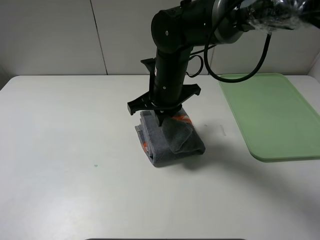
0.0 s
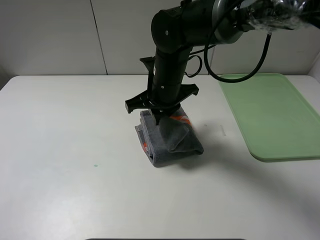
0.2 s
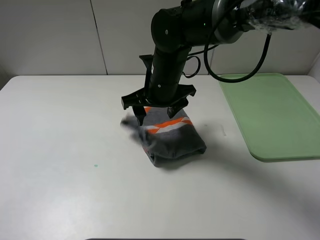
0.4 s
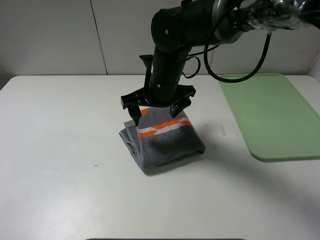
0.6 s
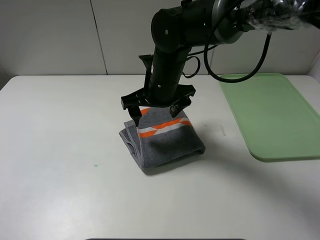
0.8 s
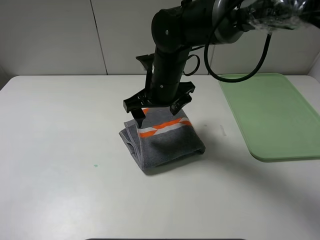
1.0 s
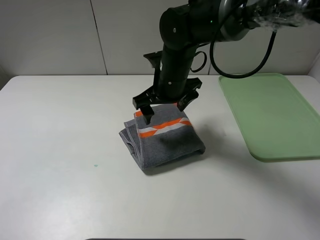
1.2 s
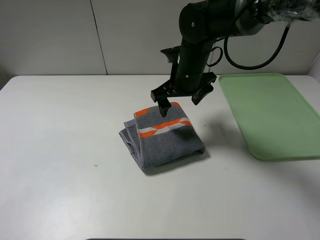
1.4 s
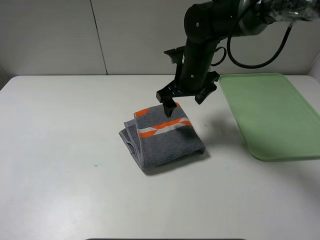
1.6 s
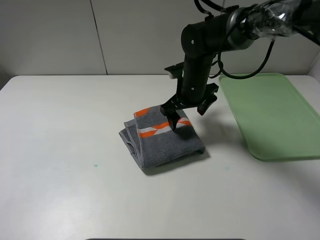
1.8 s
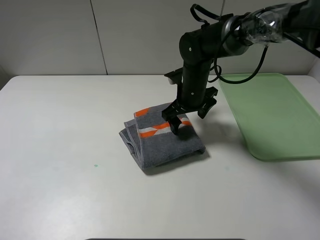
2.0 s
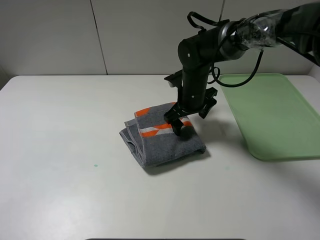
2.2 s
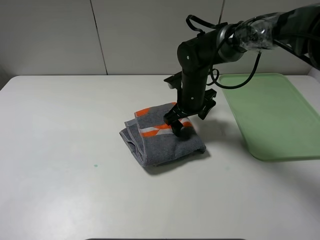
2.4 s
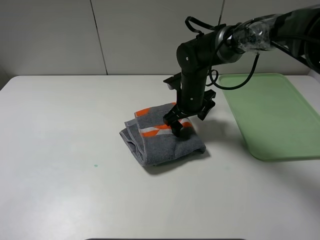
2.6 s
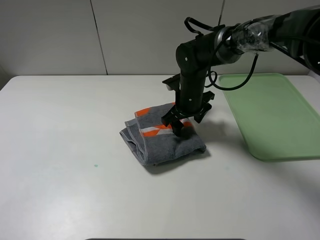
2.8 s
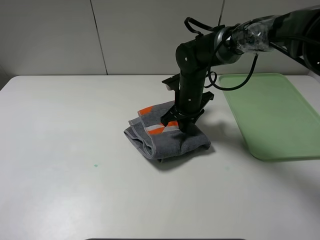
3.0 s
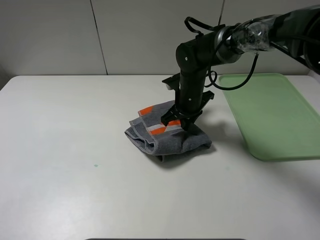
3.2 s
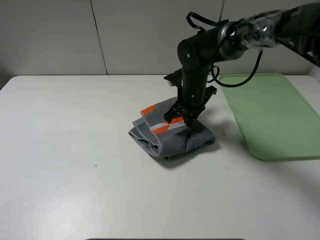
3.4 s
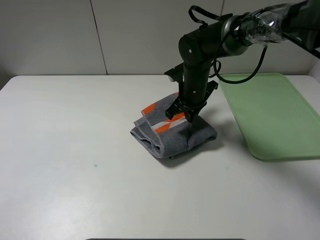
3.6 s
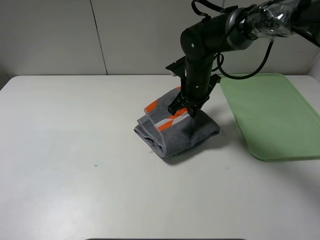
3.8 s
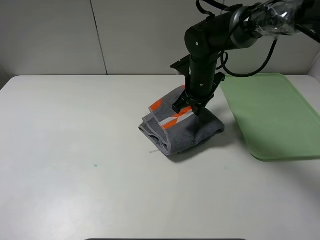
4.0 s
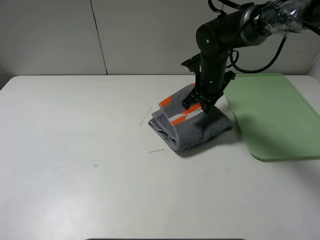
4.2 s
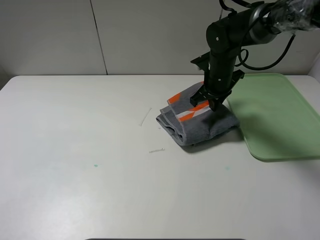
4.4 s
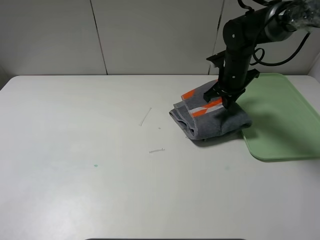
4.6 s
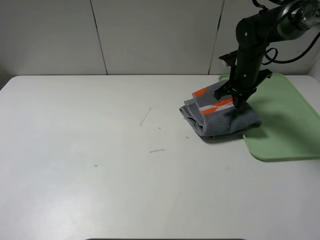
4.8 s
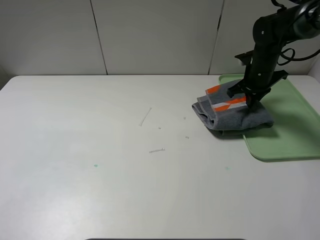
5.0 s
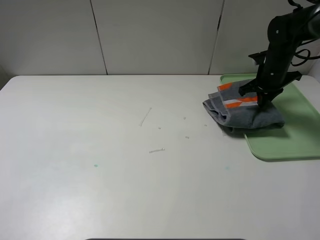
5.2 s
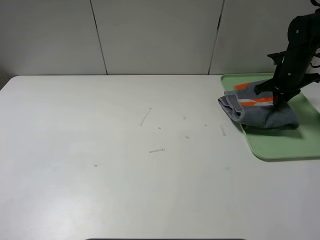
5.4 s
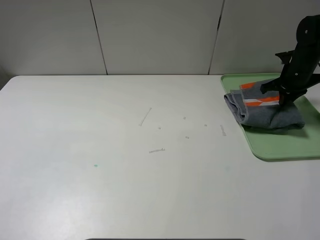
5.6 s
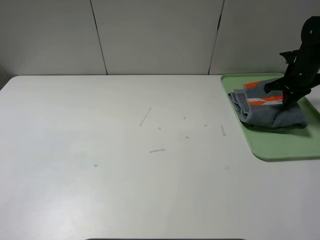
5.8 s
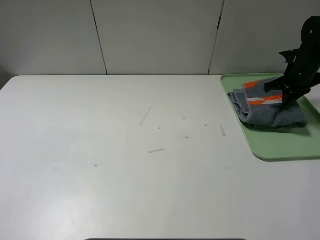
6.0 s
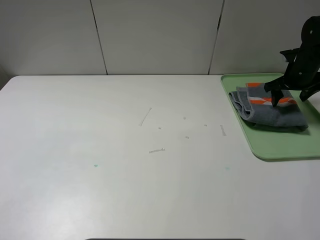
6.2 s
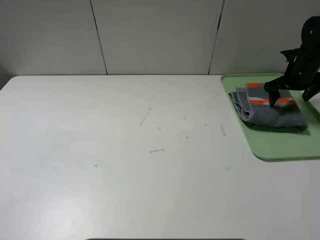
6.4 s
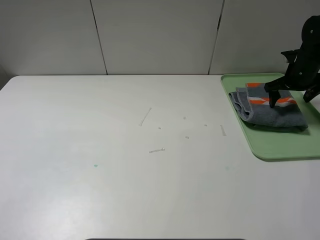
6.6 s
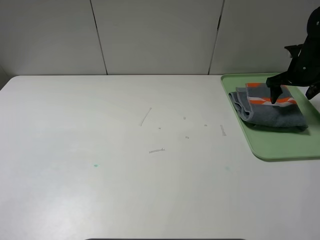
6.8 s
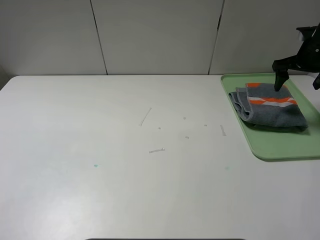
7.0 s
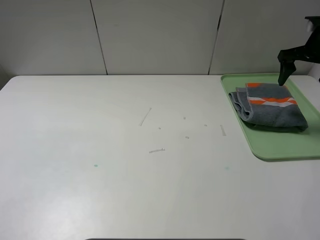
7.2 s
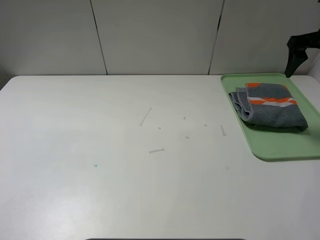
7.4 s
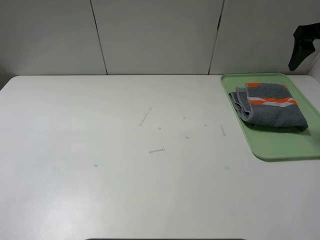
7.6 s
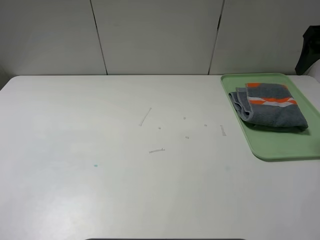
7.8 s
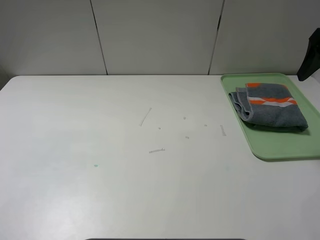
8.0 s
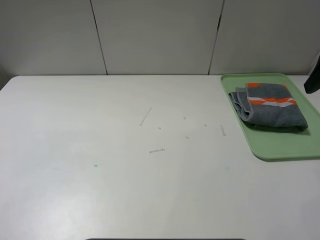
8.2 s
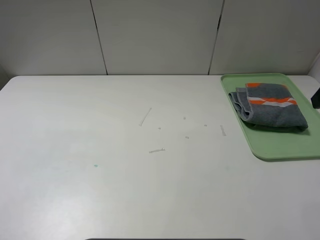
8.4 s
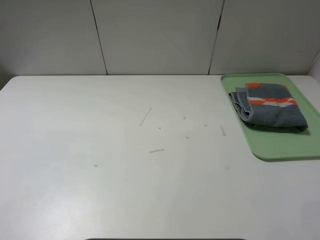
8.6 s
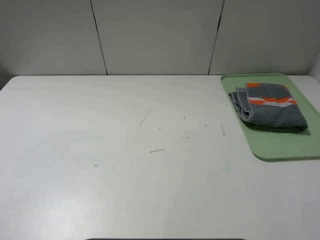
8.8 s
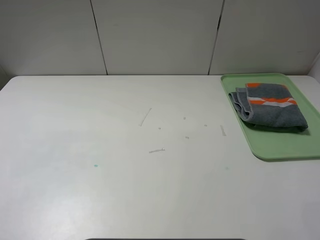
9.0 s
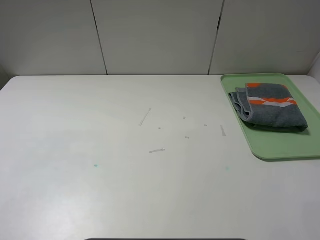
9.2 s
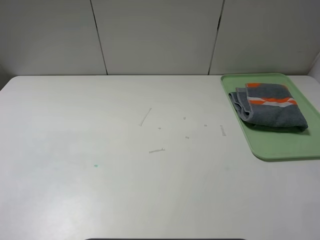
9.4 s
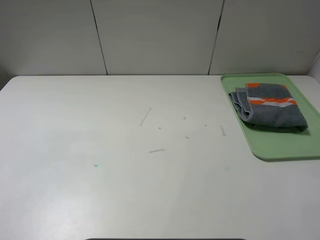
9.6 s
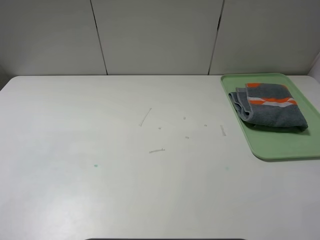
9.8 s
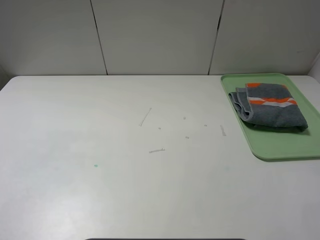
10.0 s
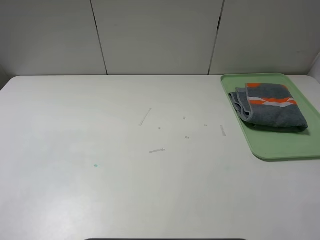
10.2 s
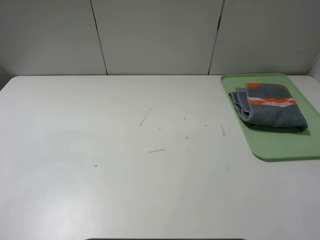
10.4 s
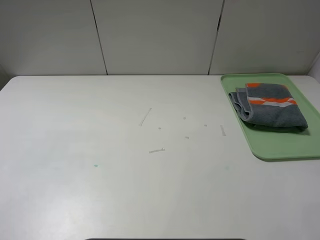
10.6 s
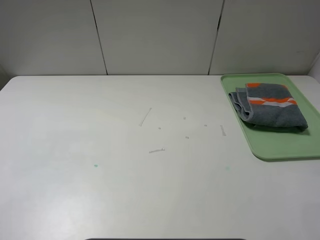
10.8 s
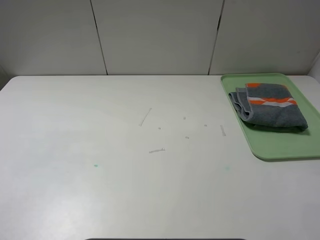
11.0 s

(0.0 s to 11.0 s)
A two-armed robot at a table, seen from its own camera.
Step, 0.6 s - 6.2 s: Place the folded grey towel on the tray with the right gripper.
0.0 s - 1.6 s: The right gripper moves to the right and forward, some 10 cm, and opens up.
1.6 s - 3.2 s: The right gripper moves downward, roughly 5 cm, and closes up.
3.2 s - 4.8 s: The right gripper travels to the right by approximately 15 cm.
4.8 s - 6.2 s: The right gripper travels to the right by roughly 15 cm, and opens up.
6.2 s - 7.8 s: The right gripper heads upward and backward, covering roughly 20 cm.
7.8 s - 9.4 s: The right gripper heads backward, covering about 30 cm.
